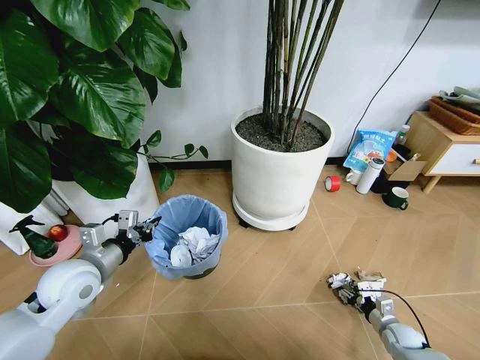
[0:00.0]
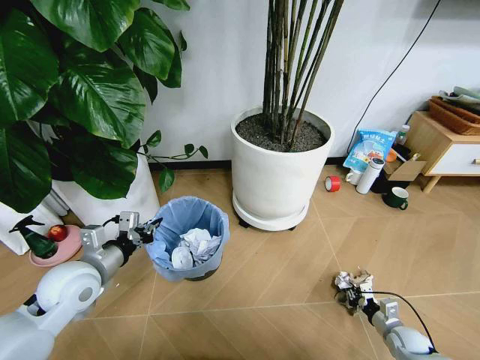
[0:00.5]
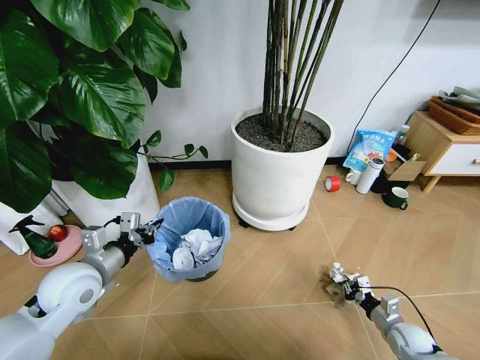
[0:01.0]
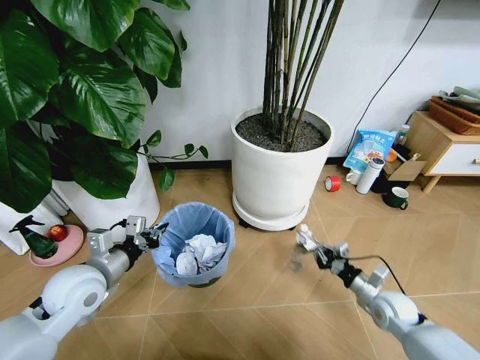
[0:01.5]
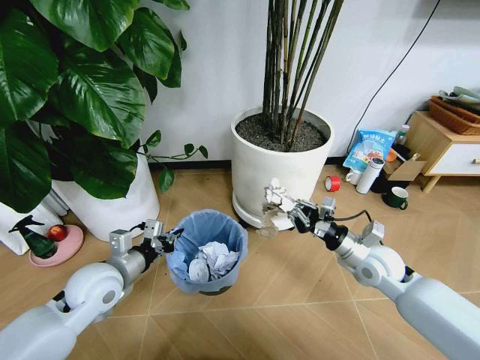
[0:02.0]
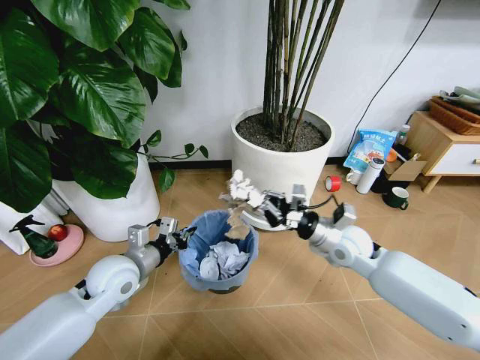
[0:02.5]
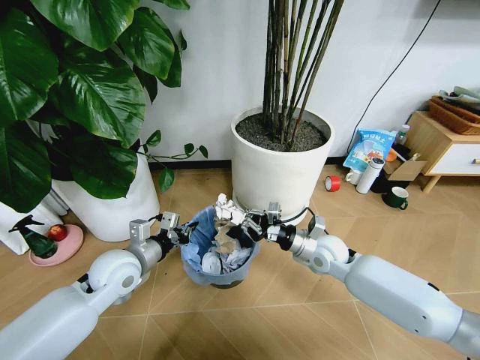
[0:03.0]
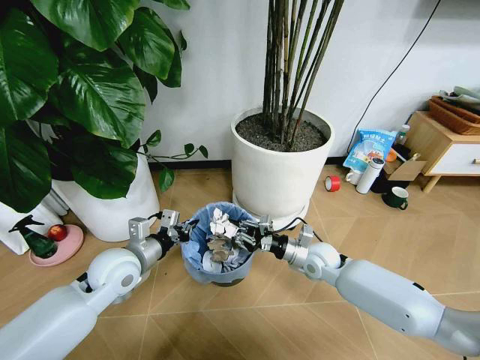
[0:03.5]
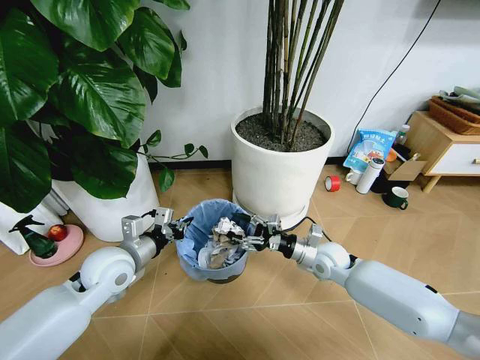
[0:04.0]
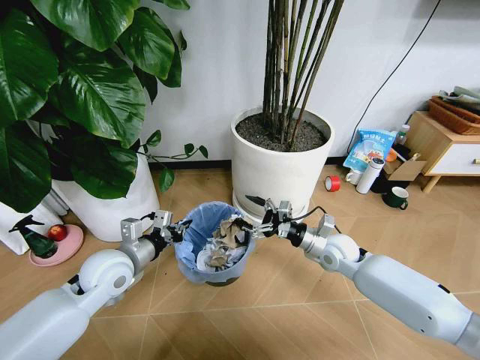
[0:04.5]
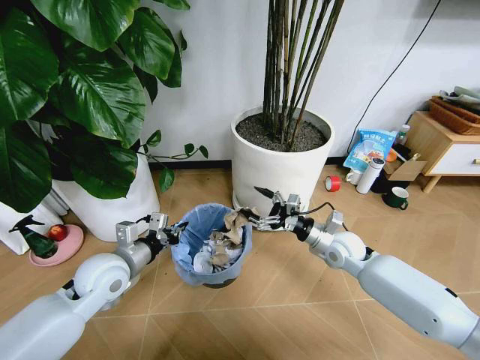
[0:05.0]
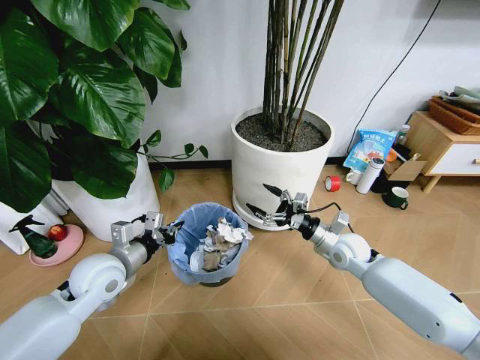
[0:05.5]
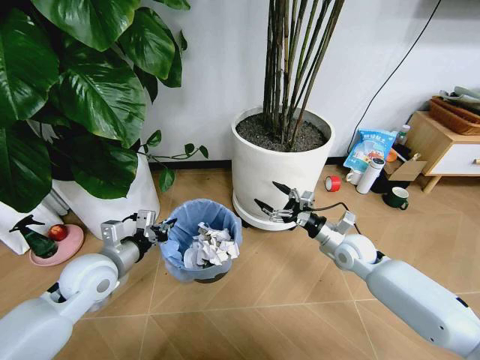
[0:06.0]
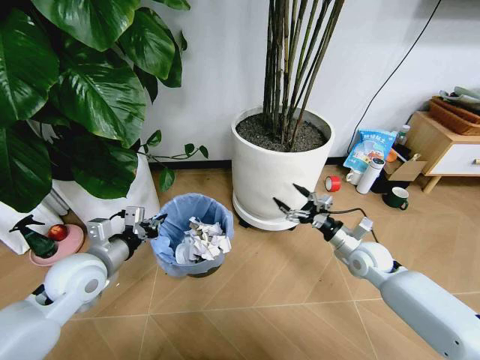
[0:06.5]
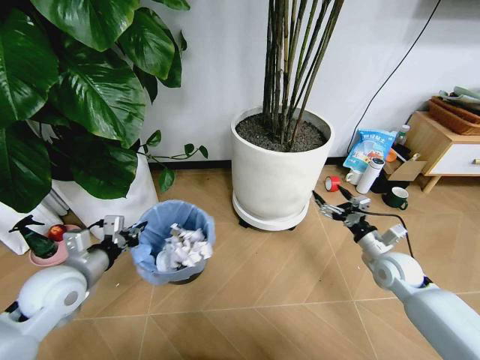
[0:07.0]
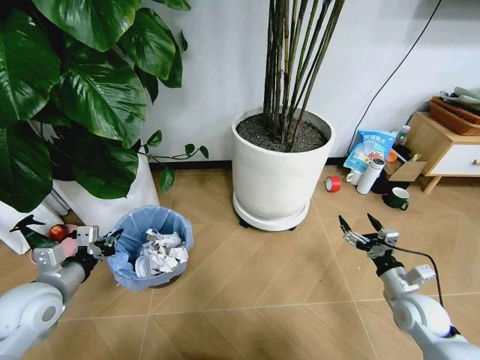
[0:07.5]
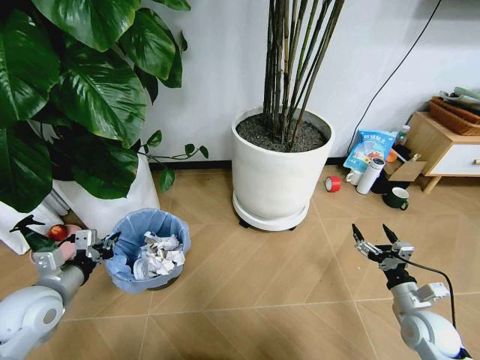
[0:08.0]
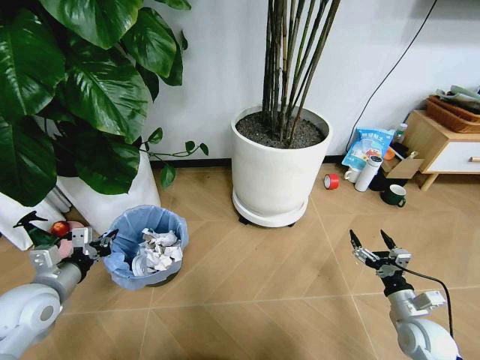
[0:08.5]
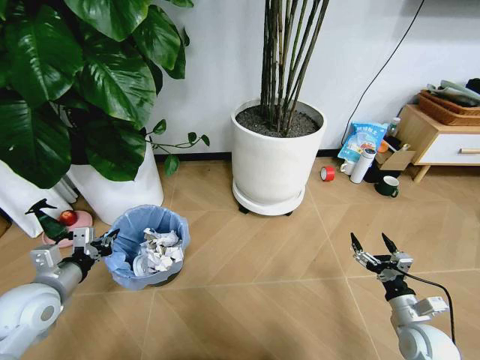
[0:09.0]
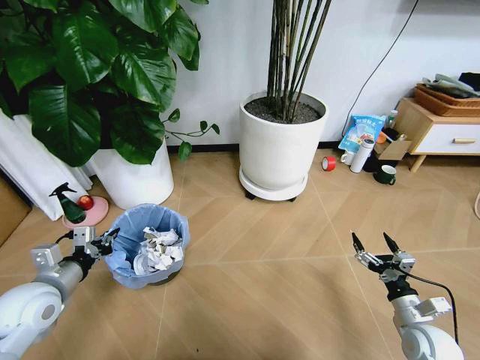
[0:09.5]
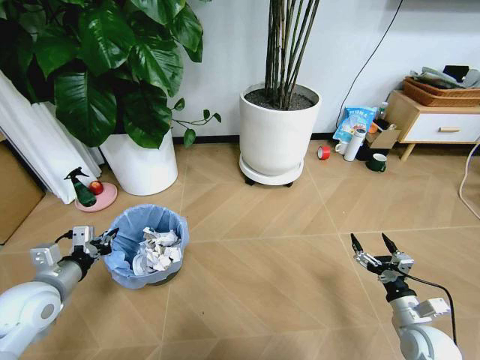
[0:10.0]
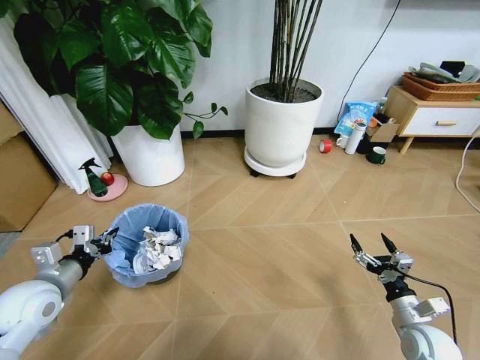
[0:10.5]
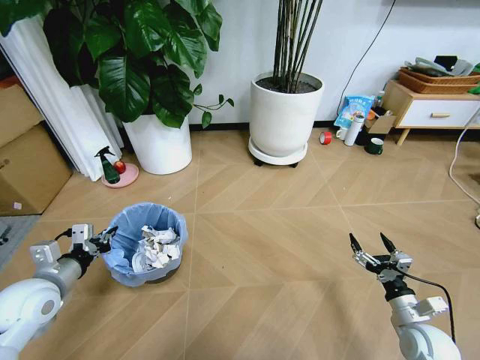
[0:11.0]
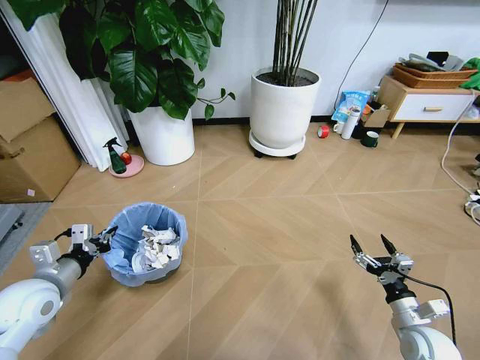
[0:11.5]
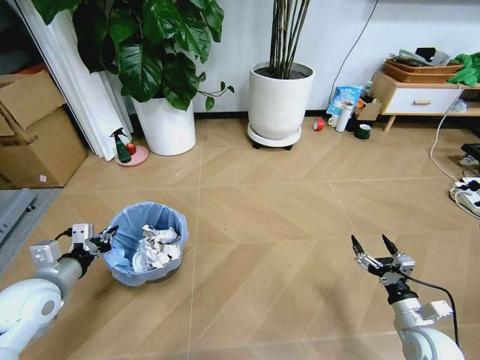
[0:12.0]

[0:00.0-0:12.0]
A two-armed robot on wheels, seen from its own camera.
Task of the whole recording: Pick up the trash bin and place the garbage on the floor into it.
0:00.0 to 0:02.0: The right gripper travels upward and to the left by approximately 30 cm, and closes its fingers.
0:02.0 to 0:04.0: The right gripper travels to the left, downward and forward by approximately 10 cm, and opens up.
0:04.0 to 0:06.0: The right gripper heads to the right, covering some 5 cm.
0:06.0 to 0:08.0: The right gripper heads backward and to the right, covering about 20 cm, while the left gripper goes roughly 10 cm to the left and backward.

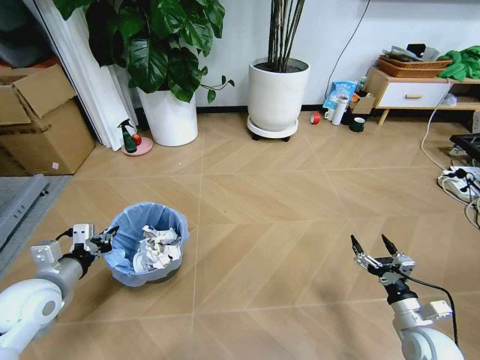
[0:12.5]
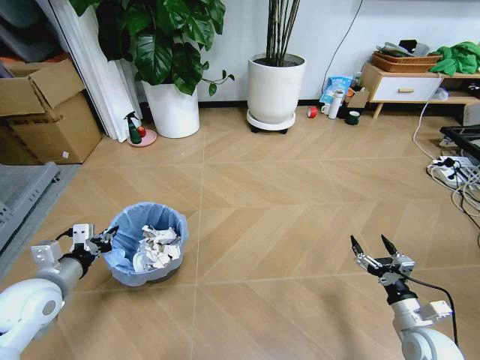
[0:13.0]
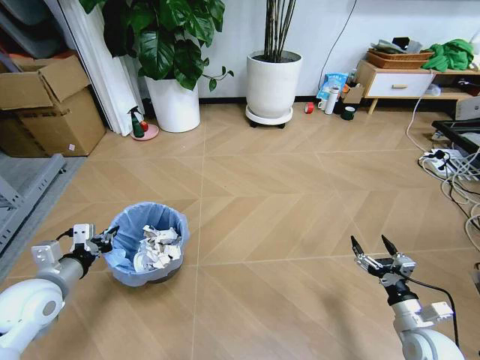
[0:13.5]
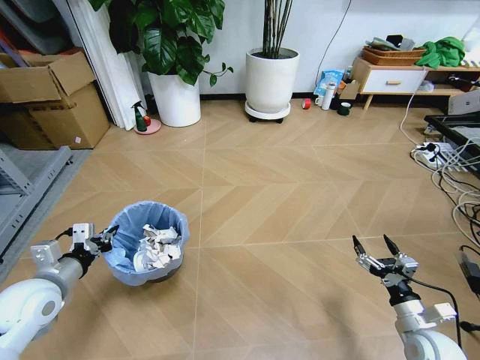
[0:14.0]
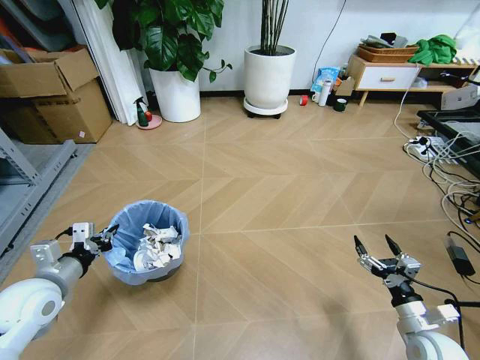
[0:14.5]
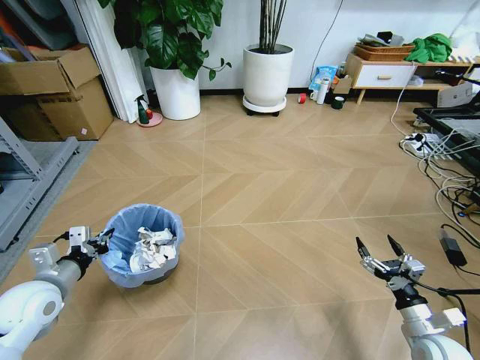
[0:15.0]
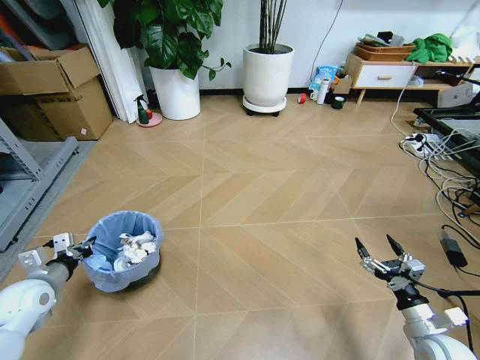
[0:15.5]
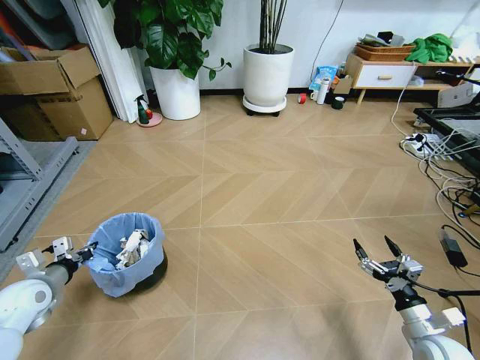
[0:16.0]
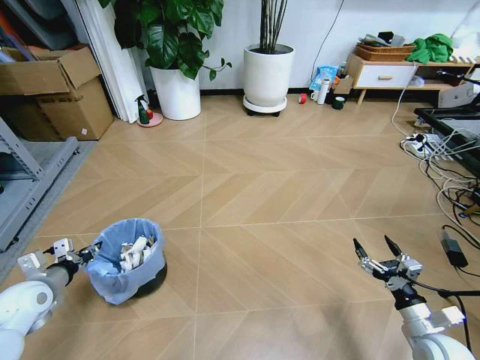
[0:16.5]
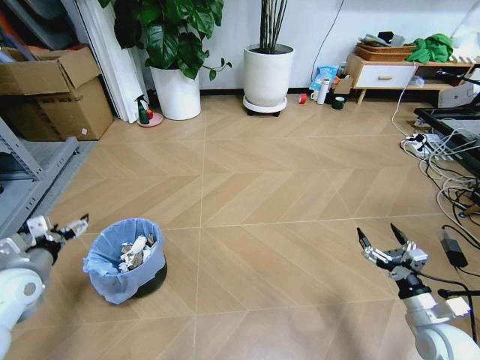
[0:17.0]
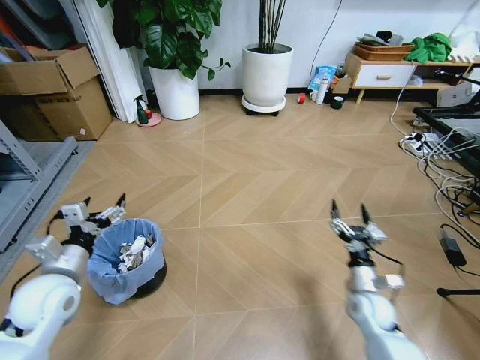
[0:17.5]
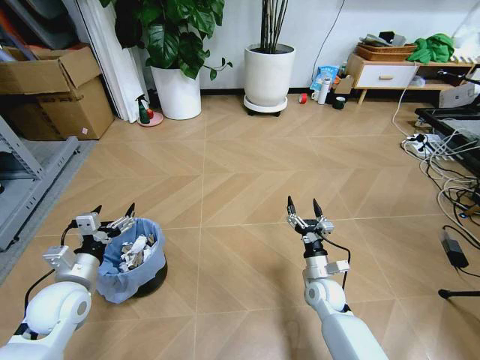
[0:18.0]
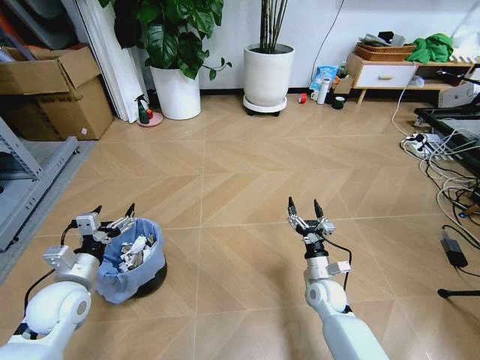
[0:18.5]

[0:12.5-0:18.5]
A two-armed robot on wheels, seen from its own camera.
Task of the whole recording: Pick up the trash bin and place the garbage on the floor into it.
0:14.5 to 0:16.5: The left gripper is displaced to the left and downward by roughly 10 cm.
0:16.5 to 0:18.5: The right gripper travels to the left and forward by roughly 25 cm. Meanwhile the left gripper travels to the right by roughly 10 cm, and opens its fingers.

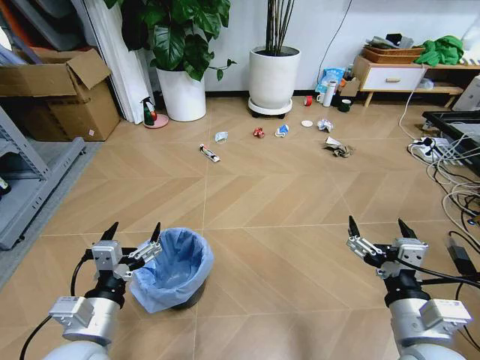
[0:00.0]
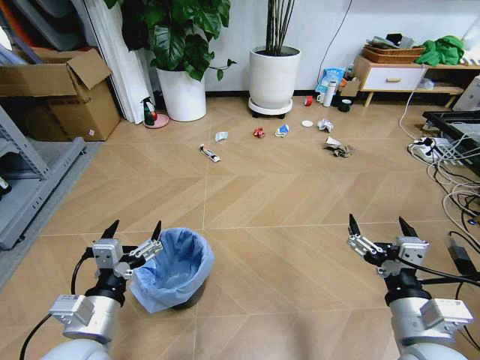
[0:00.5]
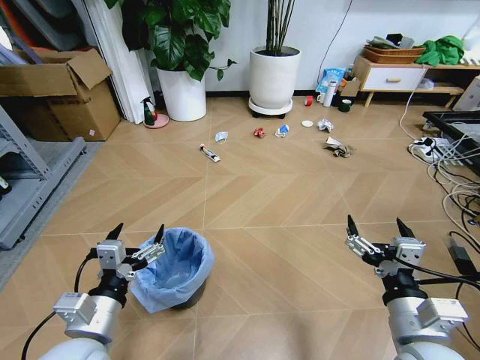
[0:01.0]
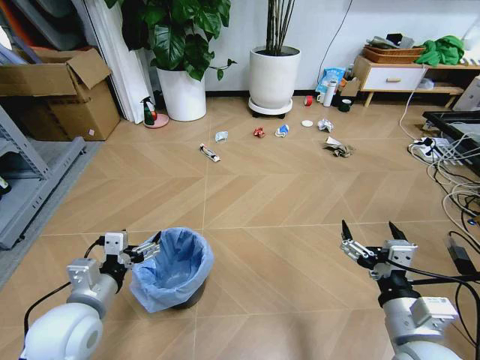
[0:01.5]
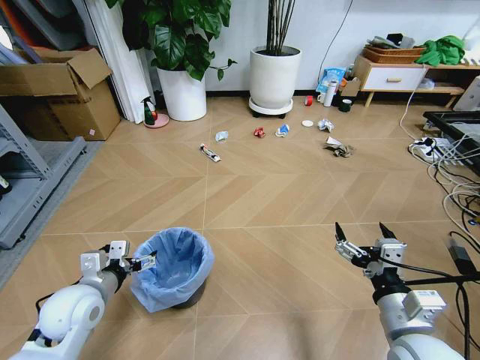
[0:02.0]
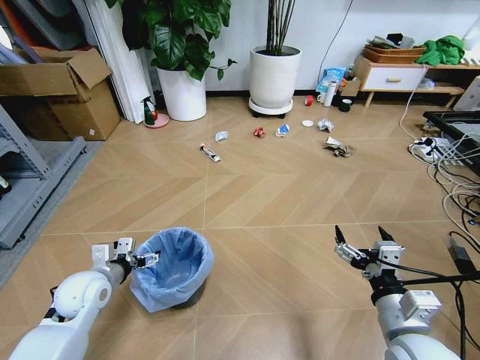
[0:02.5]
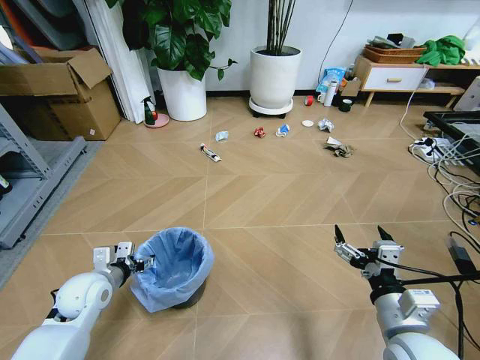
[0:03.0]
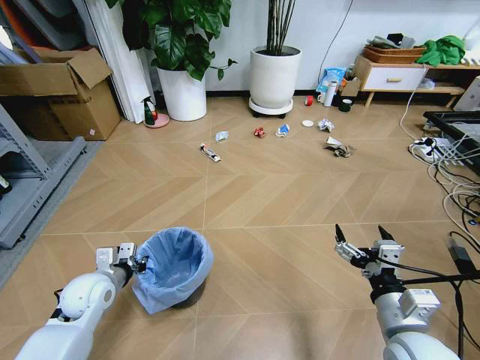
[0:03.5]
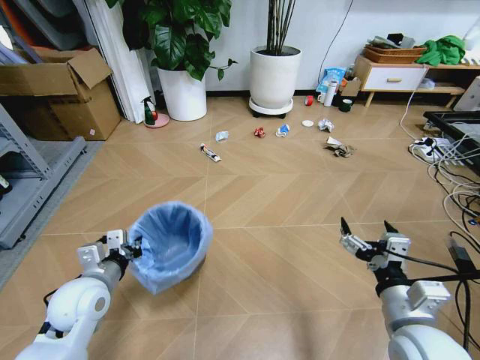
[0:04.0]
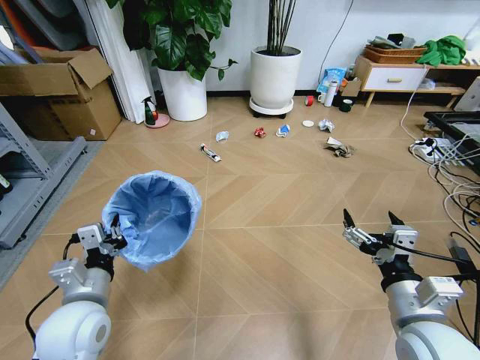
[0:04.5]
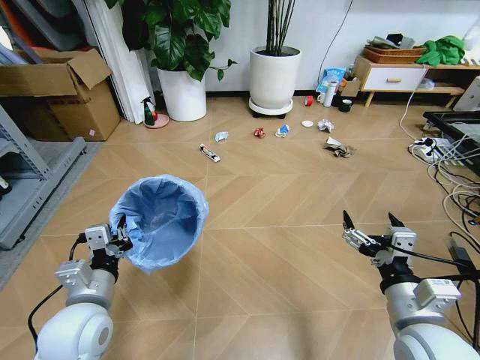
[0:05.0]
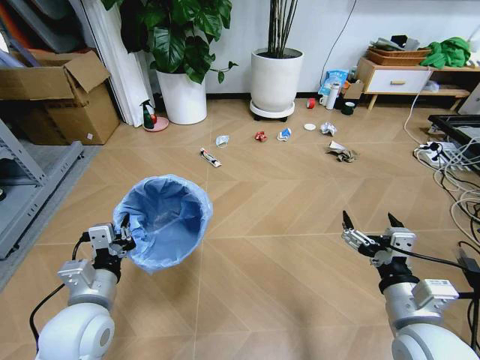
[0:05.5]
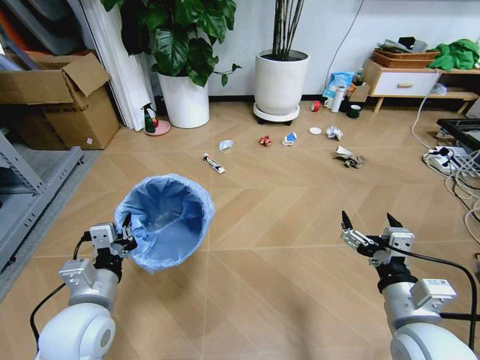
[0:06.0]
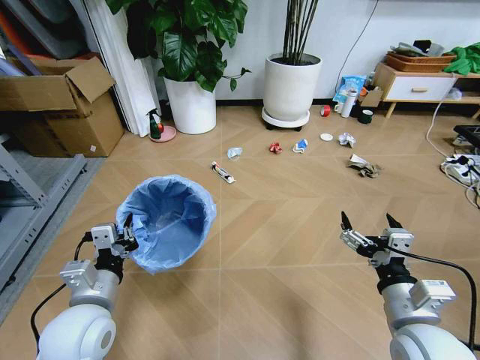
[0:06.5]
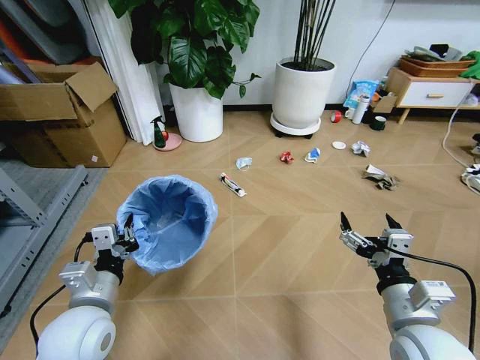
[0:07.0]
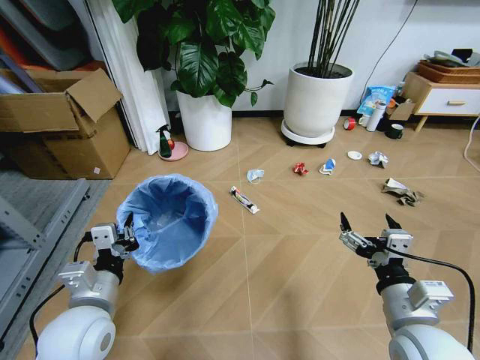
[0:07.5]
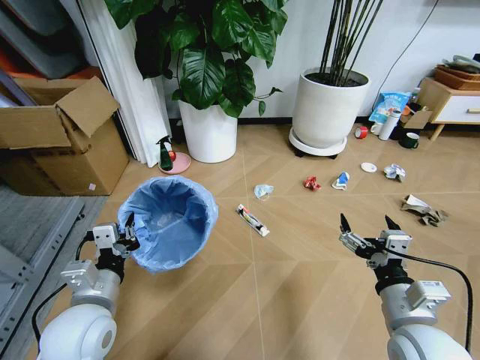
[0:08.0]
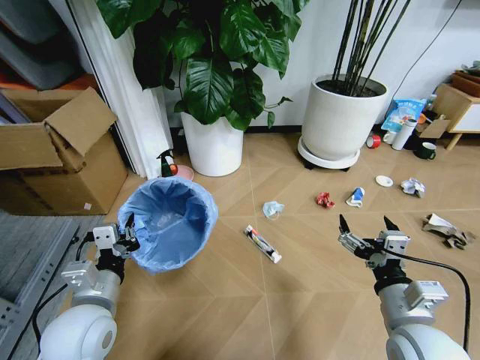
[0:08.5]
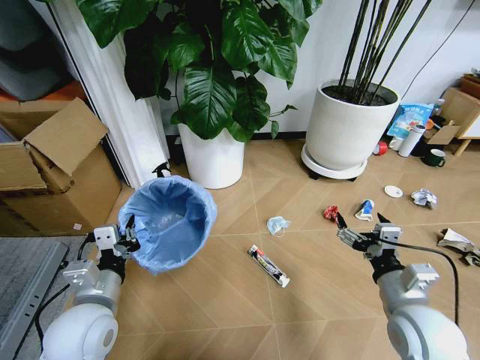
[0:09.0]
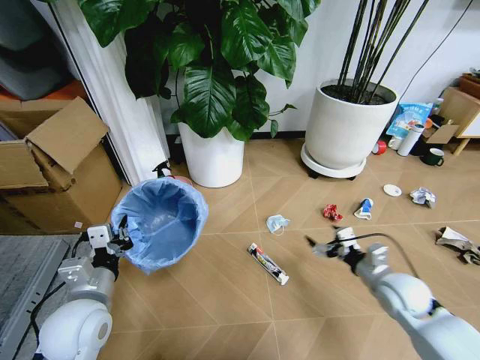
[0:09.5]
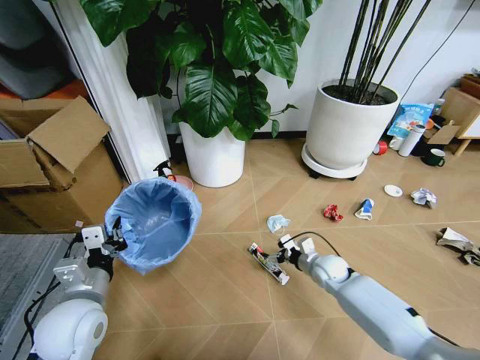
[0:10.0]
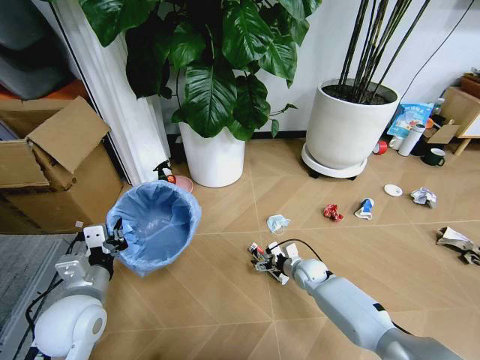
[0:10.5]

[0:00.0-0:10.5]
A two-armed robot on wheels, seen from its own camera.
Task of the whole recording: Pick up the trash bin and place the garbage on the floor into it.
0:02.0 to 0:04.0: The left gripper closes its fingers.
0:04.0 to 0:06.5: The left gripper travels backward by some 5 cm.
0:08.5 to 0:10.5: The right gripper moves forward and downward, roughly 35 cm.
